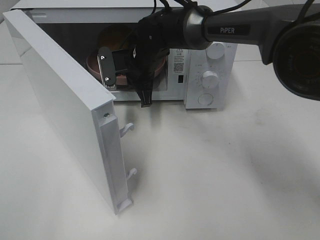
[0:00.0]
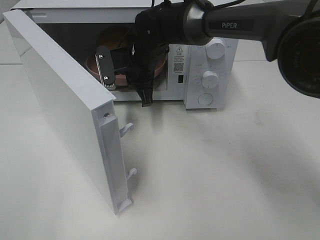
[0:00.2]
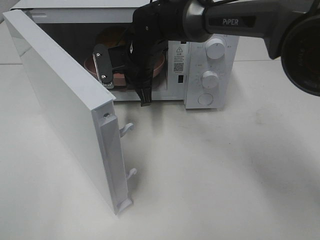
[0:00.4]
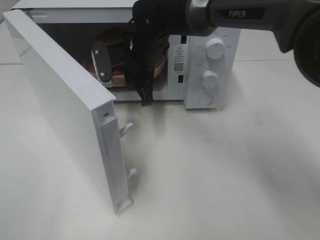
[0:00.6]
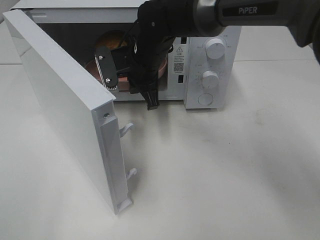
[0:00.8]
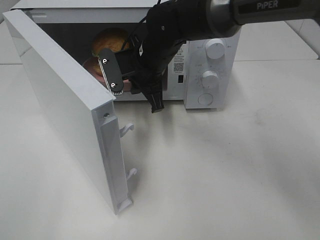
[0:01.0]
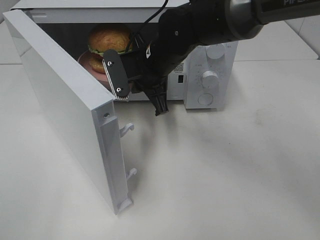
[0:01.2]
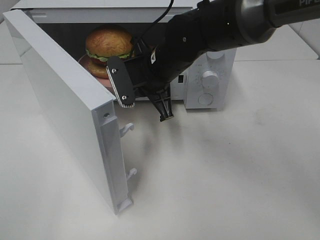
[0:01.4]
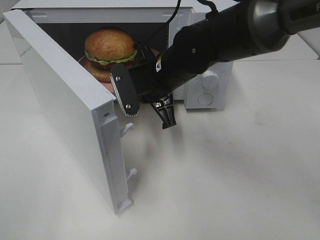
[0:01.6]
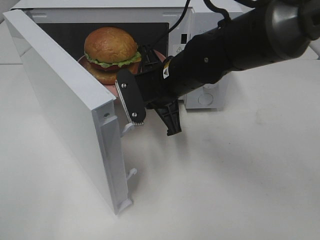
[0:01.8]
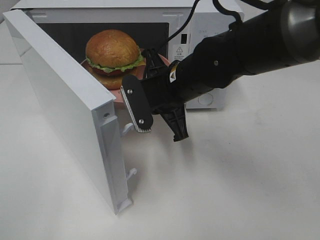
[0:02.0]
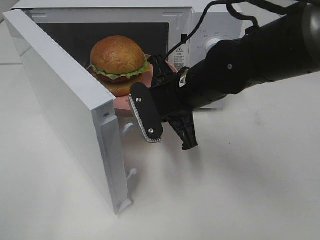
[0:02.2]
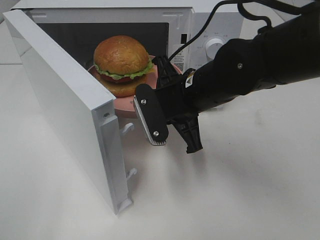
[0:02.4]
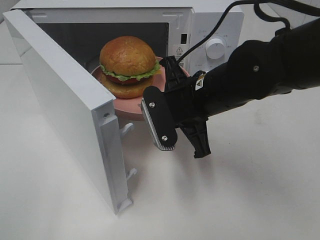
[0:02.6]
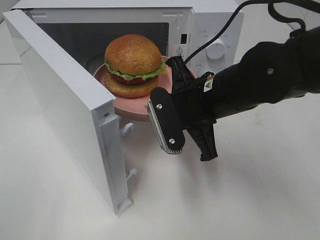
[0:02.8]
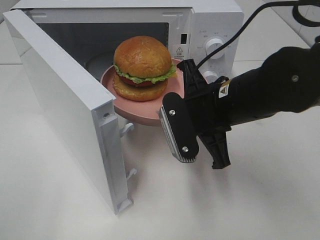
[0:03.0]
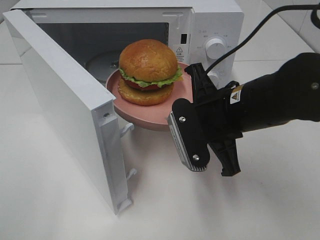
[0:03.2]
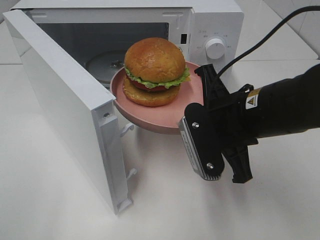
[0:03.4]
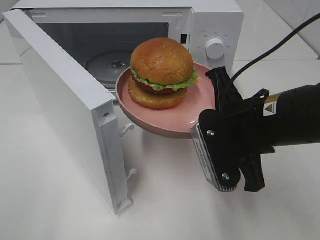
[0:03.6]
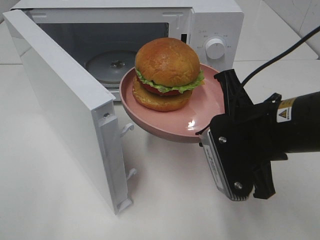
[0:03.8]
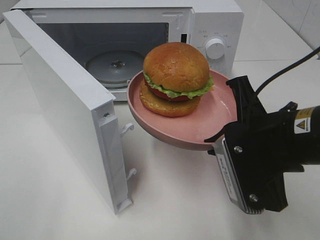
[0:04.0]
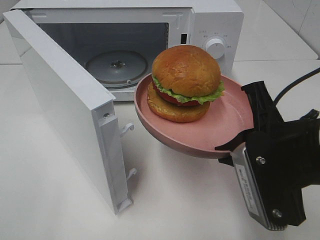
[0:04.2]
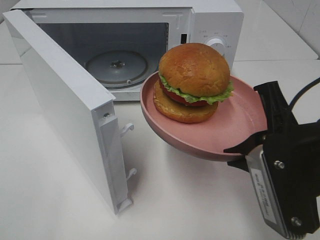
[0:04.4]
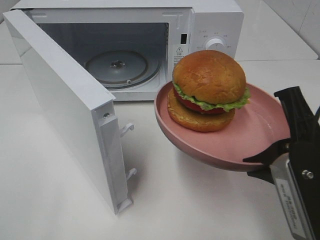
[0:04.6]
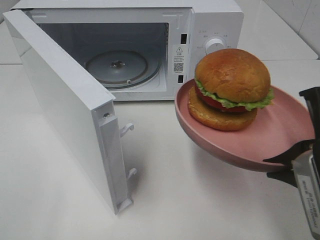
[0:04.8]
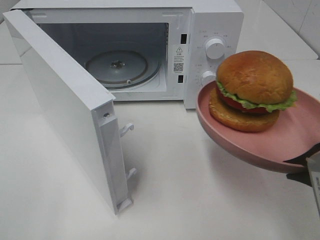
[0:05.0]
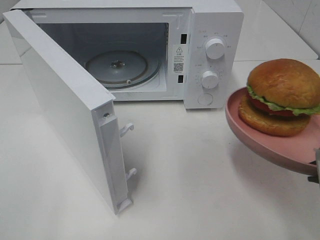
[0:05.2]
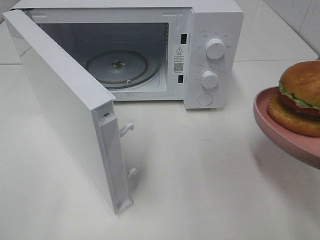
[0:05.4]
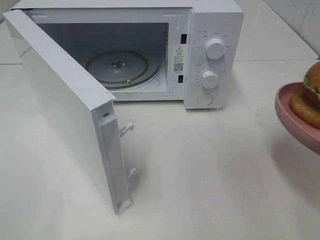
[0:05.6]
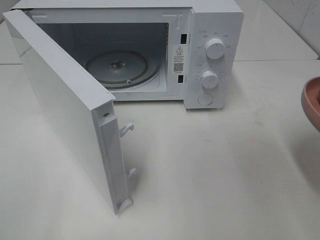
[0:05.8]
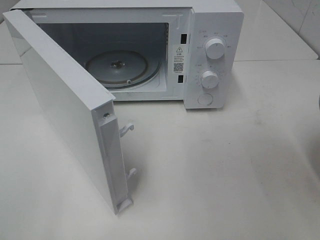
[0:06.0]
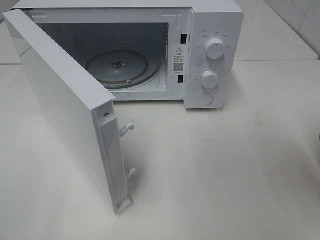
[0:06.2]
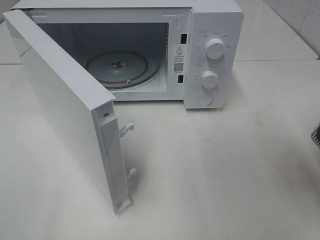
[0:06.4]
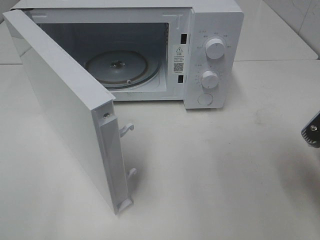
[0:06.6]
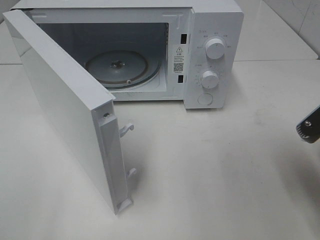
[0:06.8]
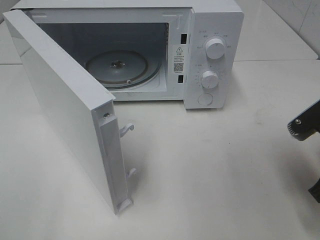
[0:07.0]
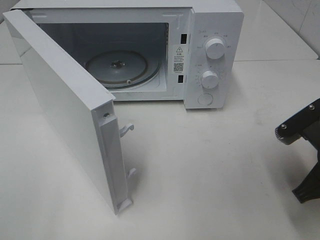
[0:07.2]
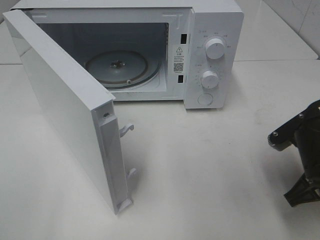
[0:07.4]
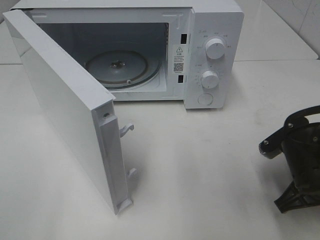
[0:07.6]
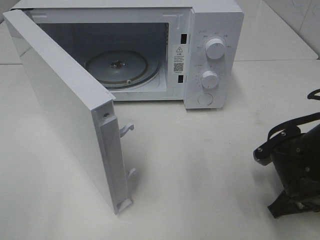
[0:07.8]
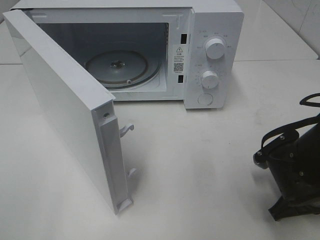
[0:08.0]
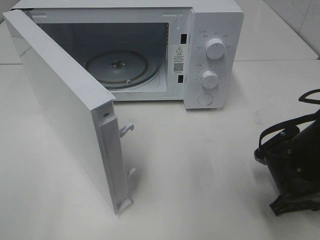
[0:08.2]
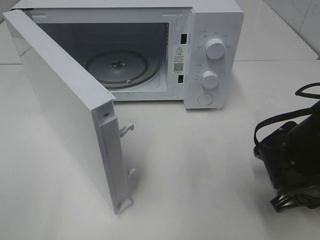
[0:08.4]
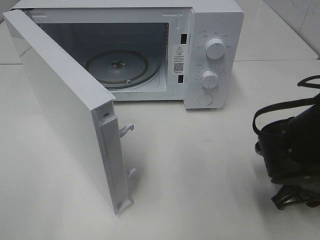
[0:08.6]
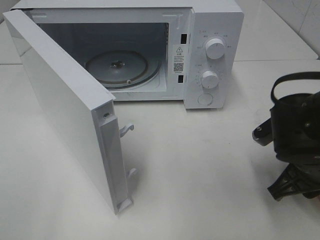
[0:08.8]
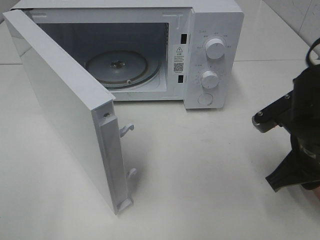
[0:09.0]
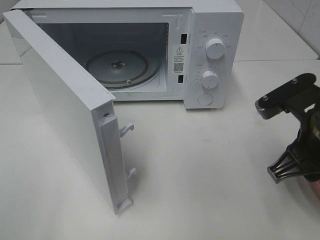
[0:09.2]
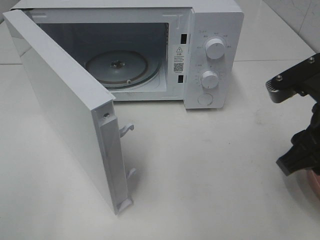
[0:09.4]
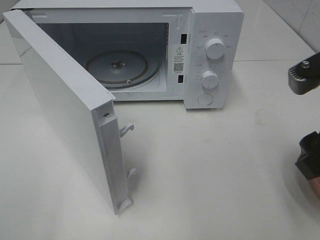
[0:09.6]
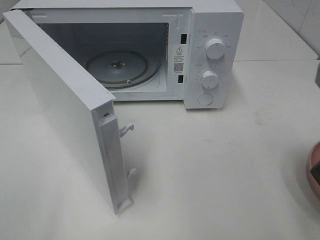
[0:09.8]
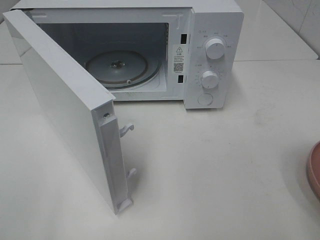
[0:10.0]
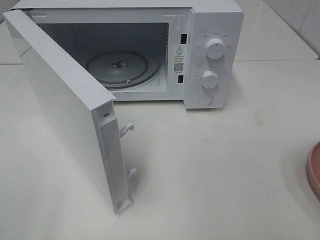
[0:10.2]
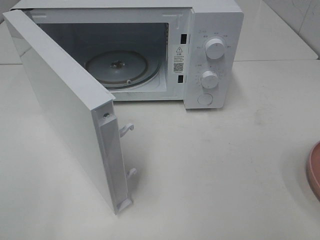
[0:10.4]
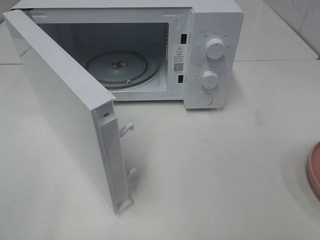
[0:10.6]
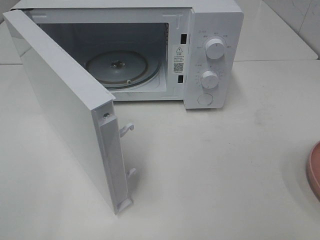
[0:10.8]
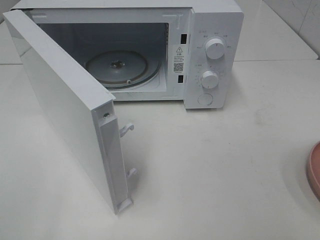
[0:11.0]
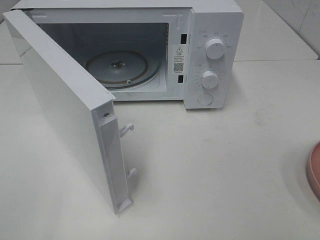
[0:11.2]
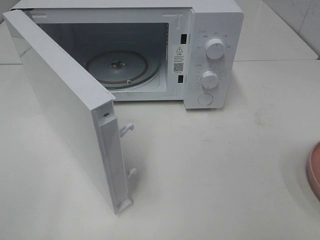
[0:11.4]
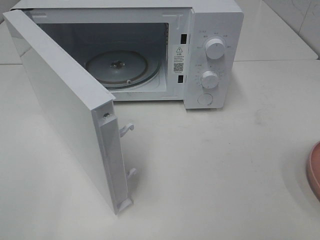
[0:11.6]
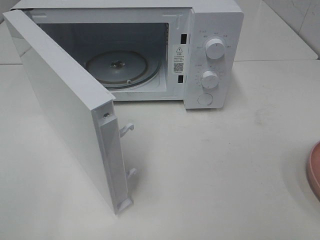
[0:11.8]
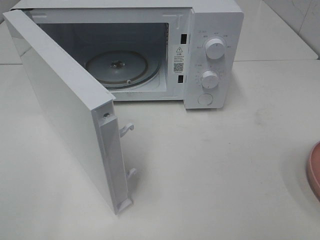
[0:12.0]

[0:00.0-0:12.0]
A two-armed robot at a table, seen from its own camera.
Task of the whole recording: Heat the burger.
Step, 0:00.0 to 0:08.8: Right hand: place the plate on the table.
0:00.0 to 0:01.6: The right gripper shifts approximately 10 cm backward.
0:01.6 to 0:03.0: The right gripper goes approximately 10 cm backward and to the right.
0:03.0 to 0:04.4: The right gripper goes some 15 cm backward and to the right.
0:04.4 to 0:06.0: The right gripper heads to the right, covering approximately 10 cm.
0:06.0 to 0:07.6: The right gripper goes some 15 cm downward and forward.
0:07.6 to 0:09.0: The right gripper shifts approximately 5 cm upward, and opens up.
0:09.0 to 0:10.4: The right gripper heads backward, upward and to the right, covering roughly 20 cm.

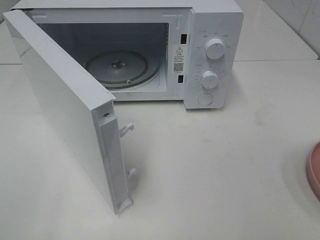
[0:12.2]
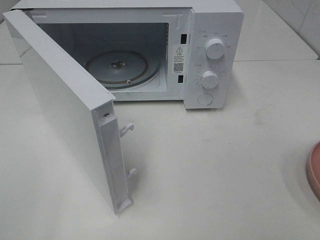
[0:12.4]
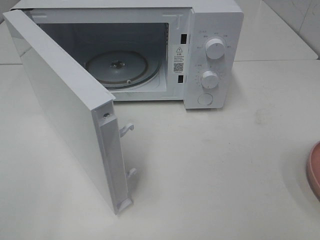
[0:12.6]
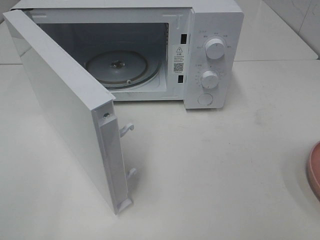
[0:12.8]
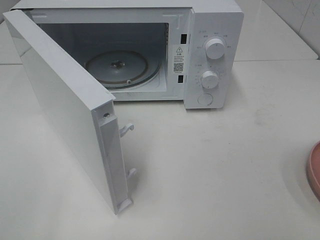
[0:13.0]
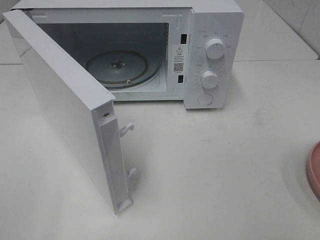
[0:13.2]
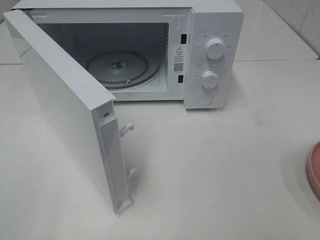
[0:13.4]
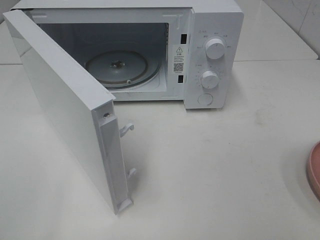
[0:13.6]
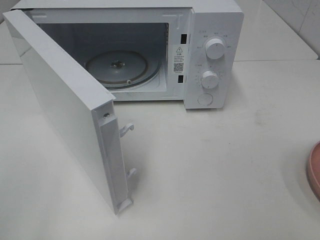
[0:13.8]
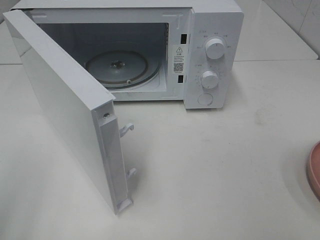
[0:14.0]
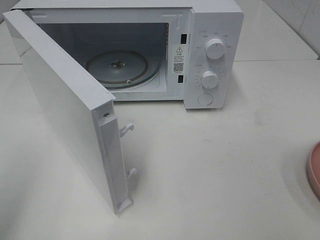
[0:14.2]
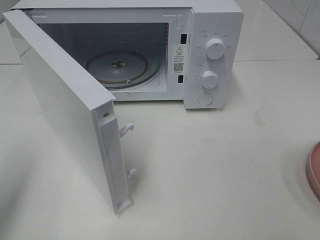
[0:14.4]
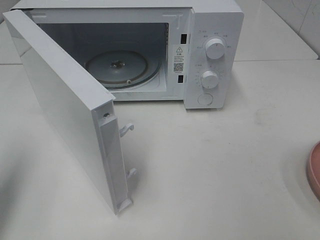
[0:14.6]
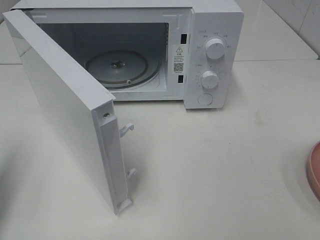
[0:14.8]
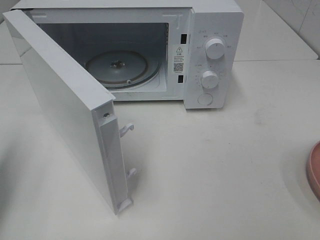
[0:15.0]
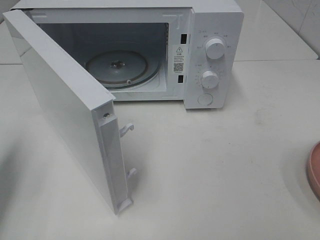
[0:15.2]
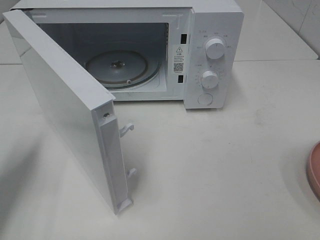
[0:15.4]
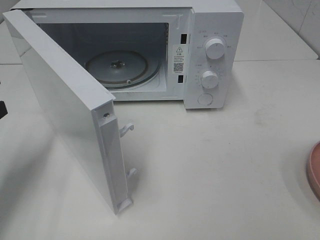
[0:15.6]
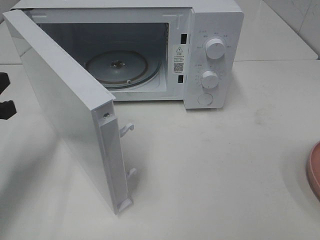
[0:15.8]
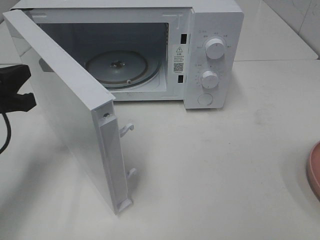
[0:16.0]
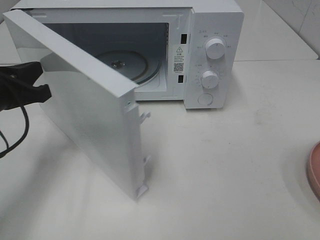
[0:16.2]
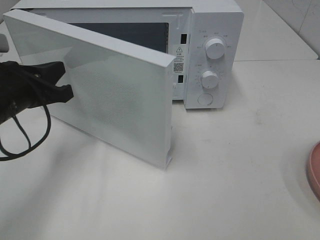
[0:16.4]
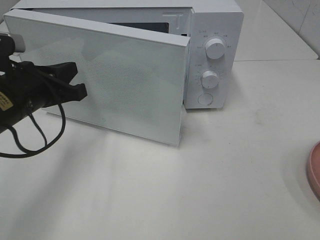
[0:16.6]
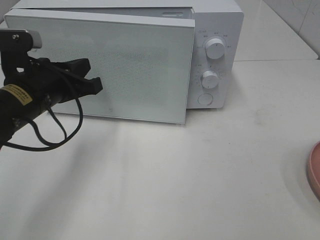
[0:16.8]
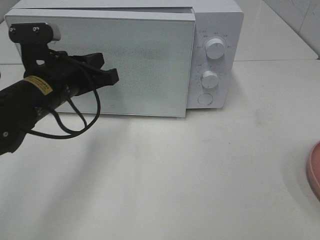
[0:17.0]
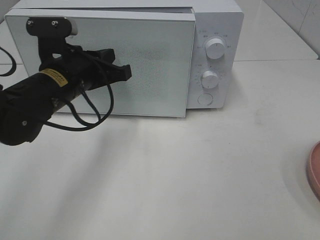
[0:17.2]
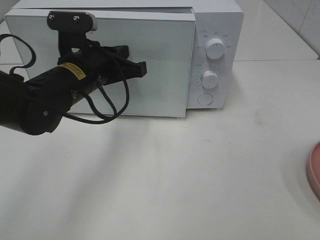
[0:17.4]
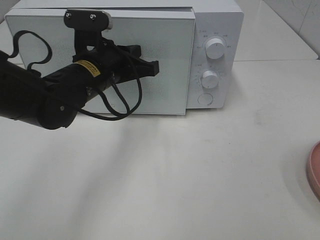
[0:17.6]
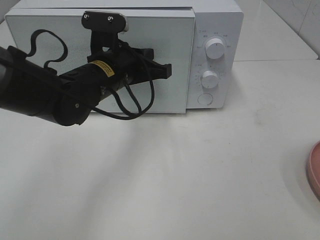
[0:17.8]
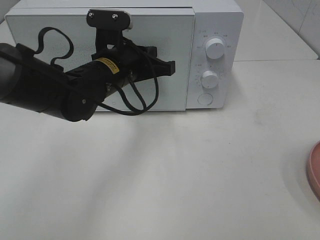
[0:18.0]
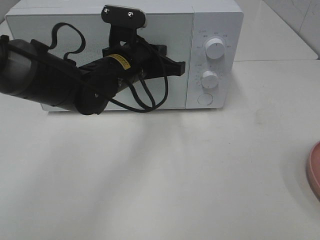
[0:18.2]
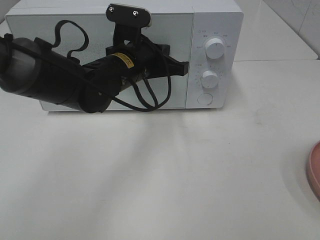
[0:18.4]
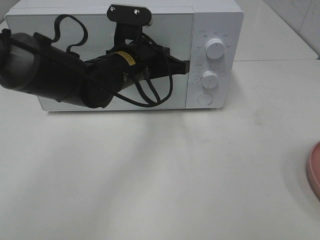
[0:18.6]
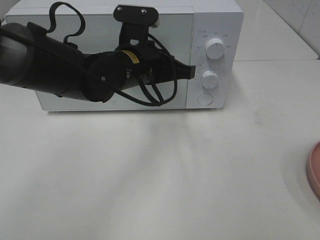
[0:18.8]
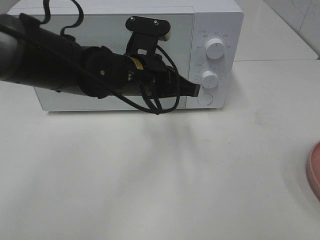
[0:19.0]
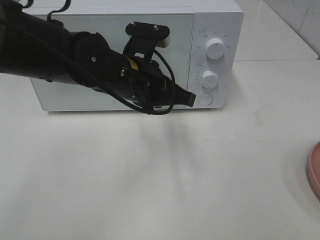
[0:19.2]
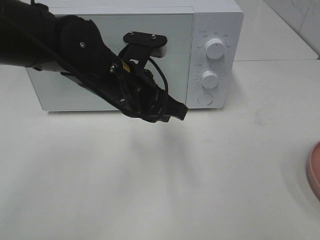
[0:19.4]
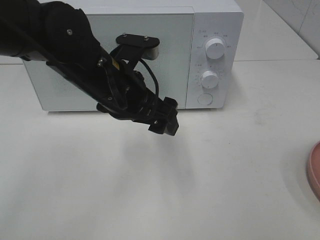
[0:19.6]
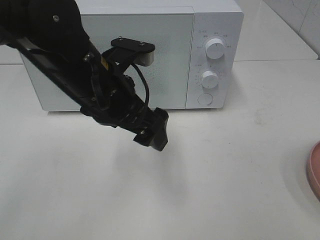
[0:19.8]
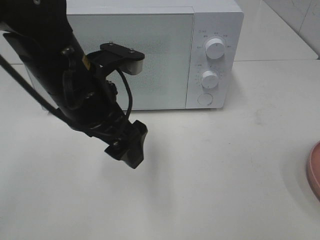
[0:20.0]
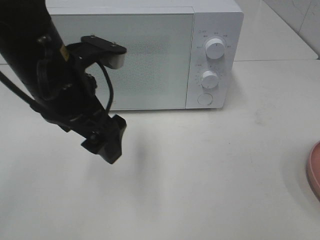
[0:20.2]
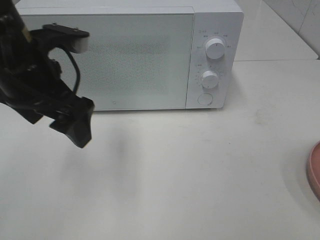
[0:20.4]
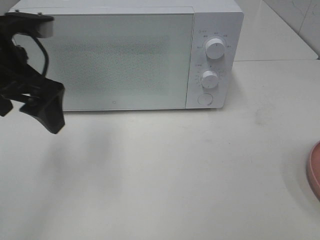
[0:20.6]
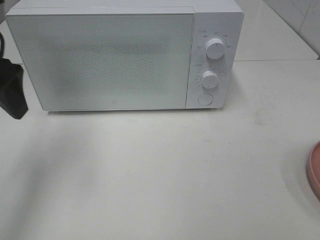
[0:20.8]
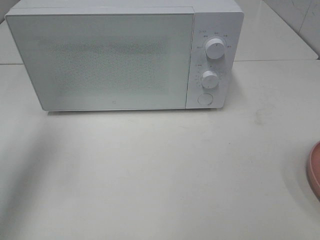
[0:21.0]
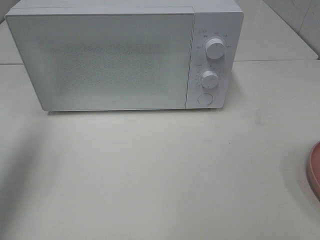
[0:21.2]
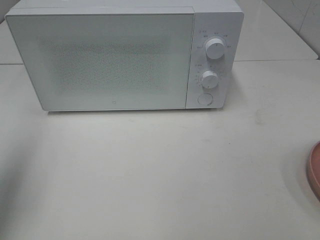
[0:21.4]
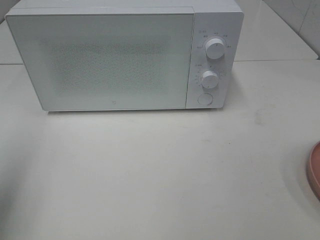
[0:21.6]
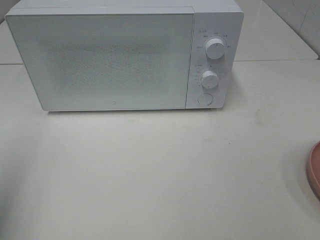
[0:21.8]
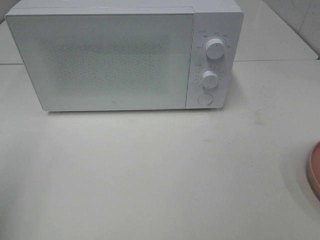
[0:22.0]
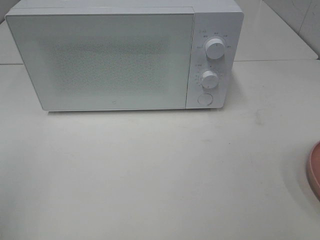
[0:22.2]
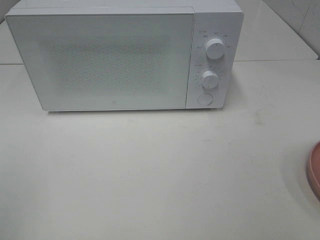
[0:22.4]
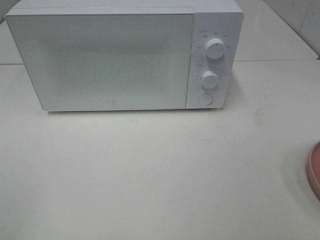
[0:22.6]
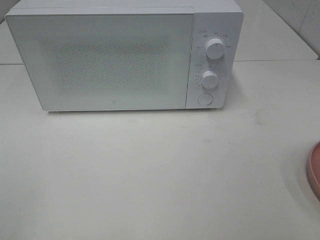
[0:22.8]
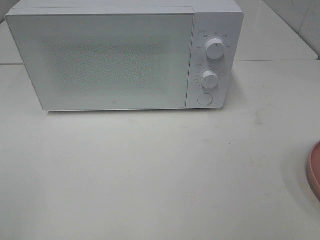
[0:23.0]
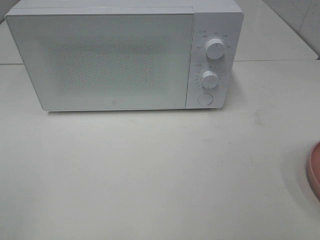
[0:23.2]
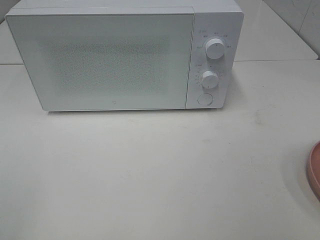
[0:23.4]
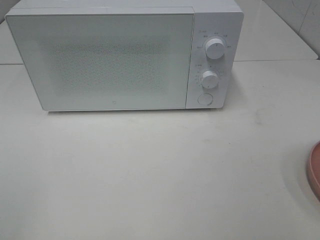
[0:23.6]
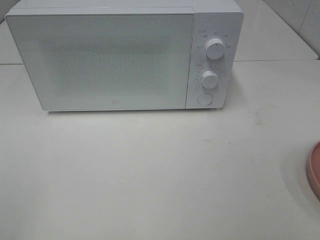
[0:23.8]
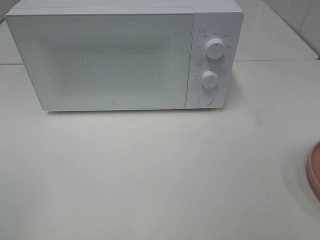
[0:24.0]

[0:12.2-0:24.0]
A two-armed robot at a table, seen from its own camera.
Task of the whole recording: Heat the burger.
Step, 0:12.2 to 0:18.8: Left hand: close the microwave door.
0:12.2 to 0:13.6: Neither gripper changes place.
0:13.6 to 0:15.2: The left gripper travels forward and downward by roughly 20 cm, and closes up.
0:15.2 to 0:16.6: The left gripper goes approximately 15 cm to the right and forward.
0:16.6 to 0:18.2: The left gripper shifts roughly 15 cm to the right and forward.
0:18.2 to 0:19.6: The left gripper travels backward by some 10 cm, and opens its fingers.
0:19.6 to 0:21.0: The left gripper is displaced to the left and upward by about 25 cm.
0:21.0 to 0:22.6: The left gripper is displaced backward by roughly 25 cm.
0:22.6 to 0:24.0: Both grippers stay about where they are.
